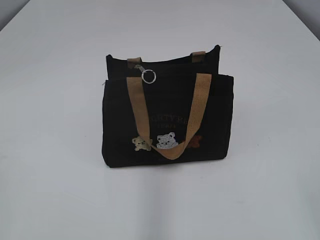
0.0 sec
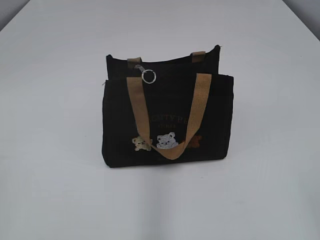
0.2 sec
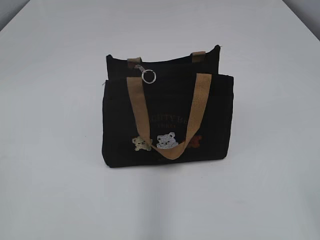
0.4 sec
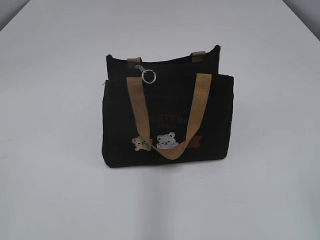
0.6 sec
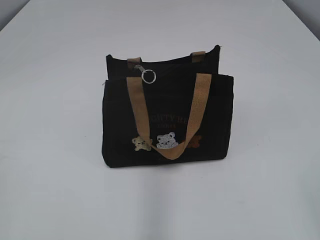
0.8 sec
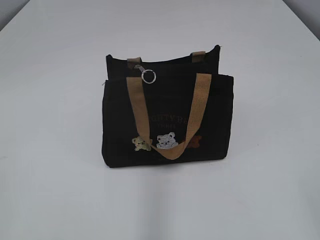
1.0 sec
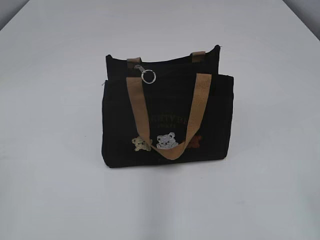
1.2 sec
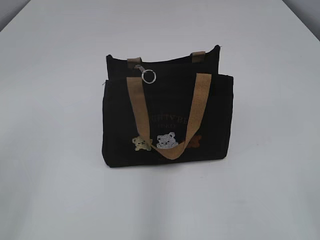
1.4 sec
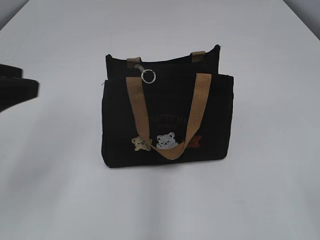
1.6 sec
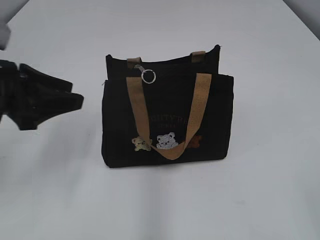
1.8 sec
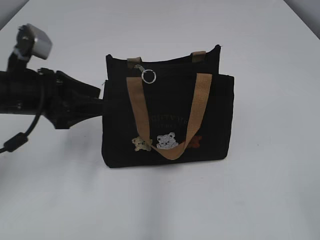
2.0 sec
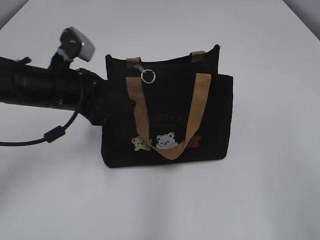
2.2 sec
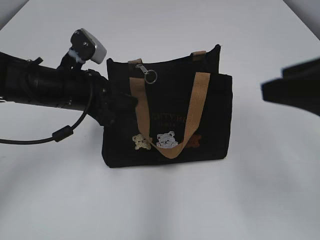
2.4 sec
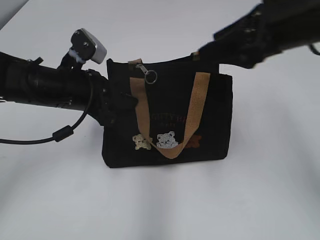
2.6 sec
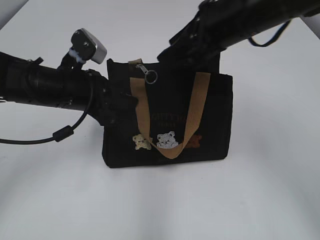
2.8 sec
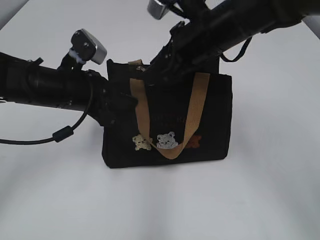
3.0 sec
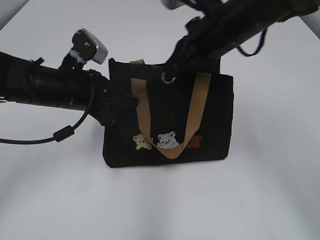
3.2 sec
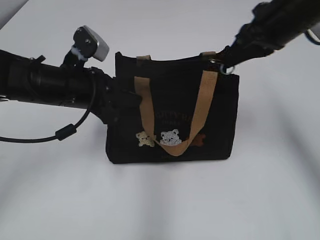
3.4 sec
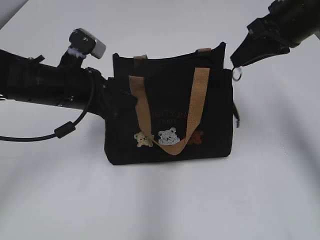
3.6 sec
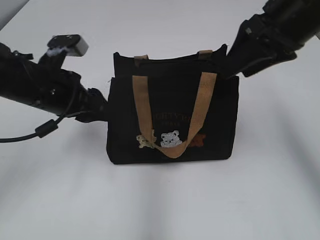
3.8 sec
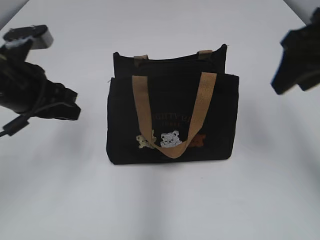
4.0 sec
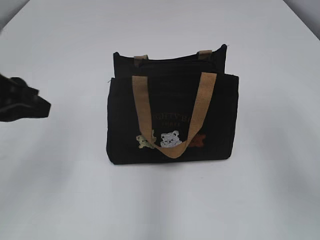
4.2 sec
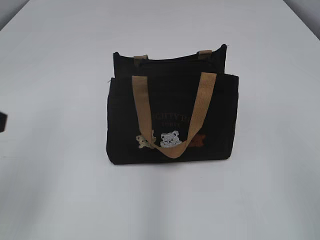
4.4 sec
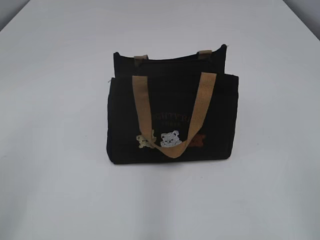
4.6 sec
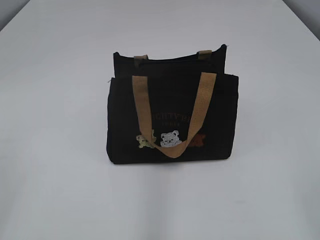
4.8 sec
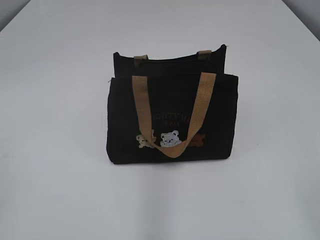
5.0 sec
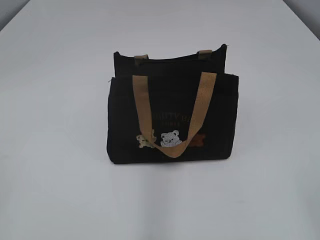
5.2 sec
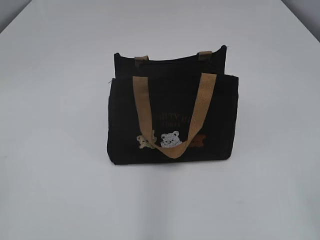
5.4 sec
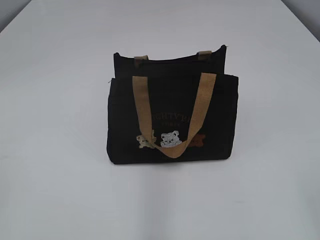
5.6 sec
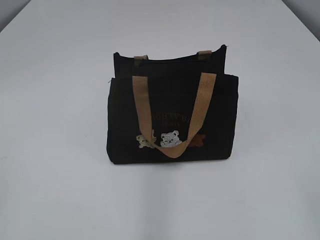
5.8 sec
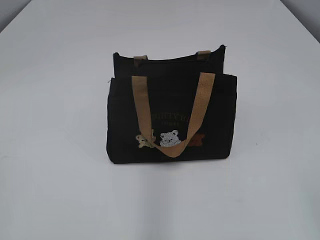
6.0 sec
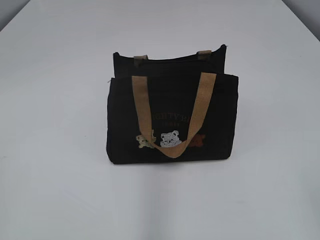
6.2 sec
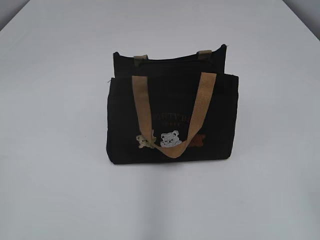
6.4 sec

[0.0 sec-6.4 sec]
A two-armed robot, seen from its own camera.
Step, 0.0 sec to 3.6 sec: Pull open the zipper with your right hand.
1.6 sec to 3.2 sec: The right gripper heads forward and to the left, covering about 40 cm, and closes its fingers, while the left gripper travels forward, downward and to the right by about 25 cm, and closes.
3.2 sec to 4.8 sec: The left gripper travels backward, to the left and upward by about 30 cm. The right gripper shifts some 40 cm backward and to the right, and opens its fingers.

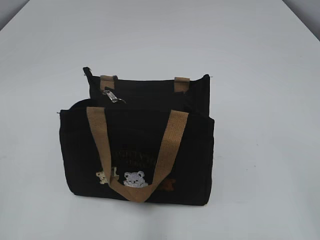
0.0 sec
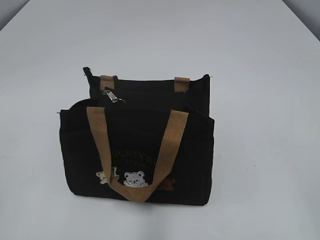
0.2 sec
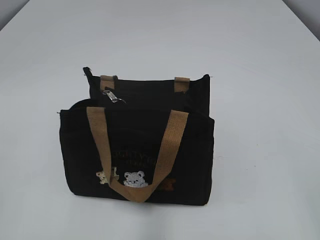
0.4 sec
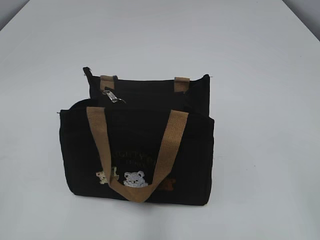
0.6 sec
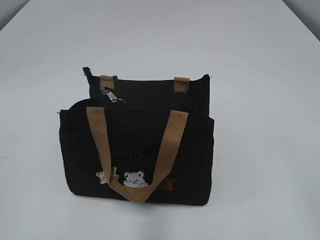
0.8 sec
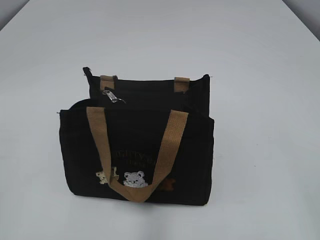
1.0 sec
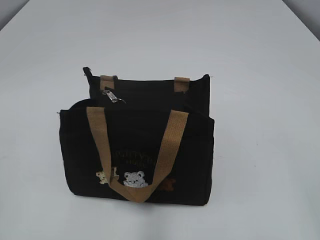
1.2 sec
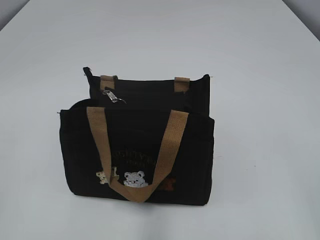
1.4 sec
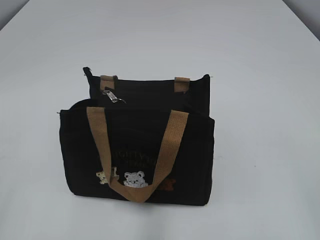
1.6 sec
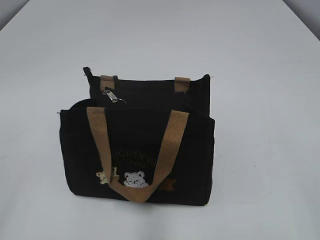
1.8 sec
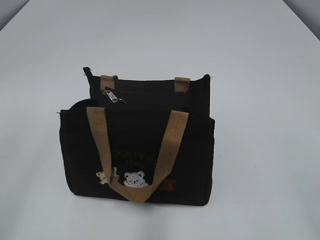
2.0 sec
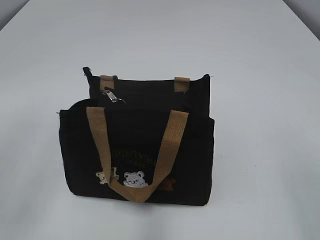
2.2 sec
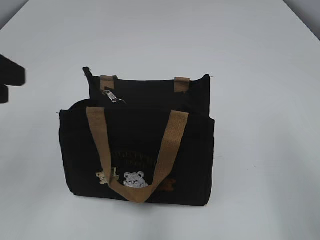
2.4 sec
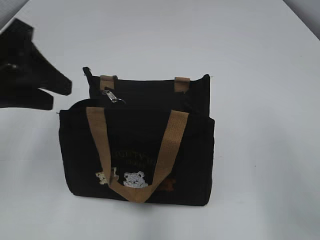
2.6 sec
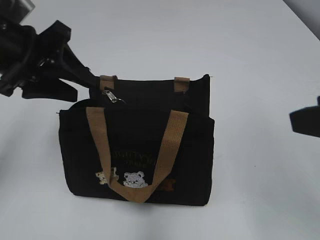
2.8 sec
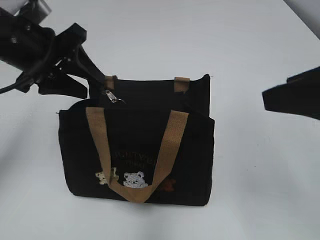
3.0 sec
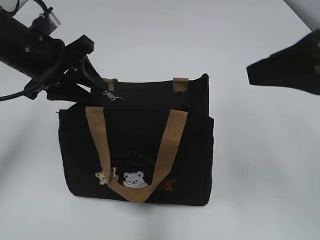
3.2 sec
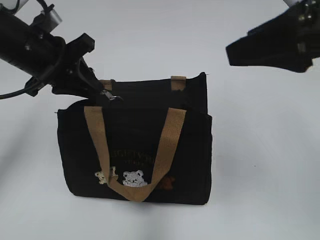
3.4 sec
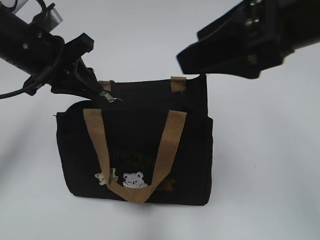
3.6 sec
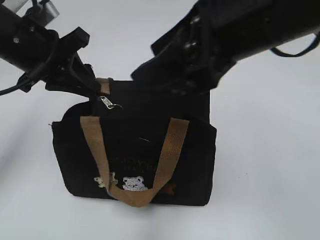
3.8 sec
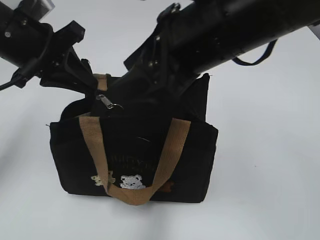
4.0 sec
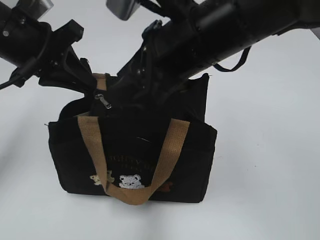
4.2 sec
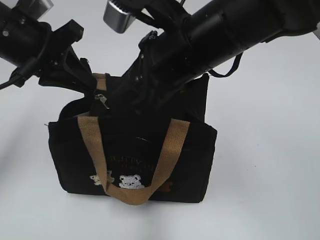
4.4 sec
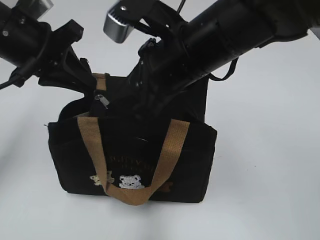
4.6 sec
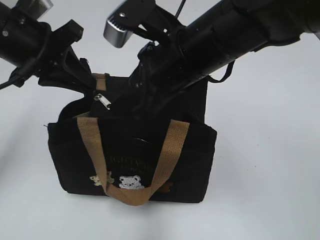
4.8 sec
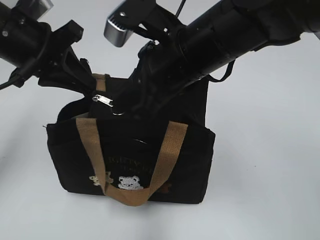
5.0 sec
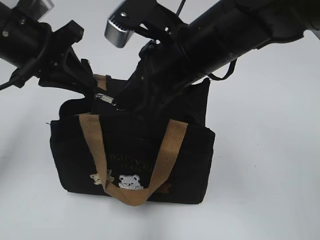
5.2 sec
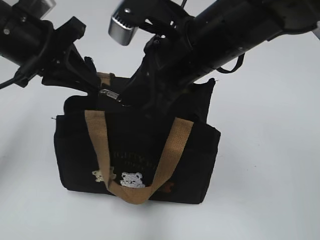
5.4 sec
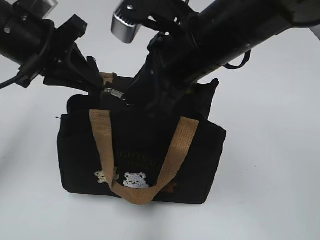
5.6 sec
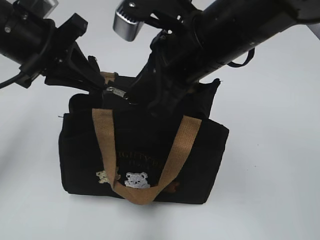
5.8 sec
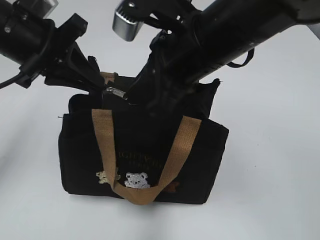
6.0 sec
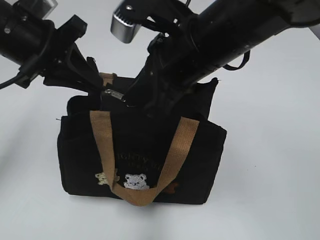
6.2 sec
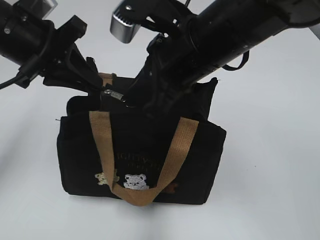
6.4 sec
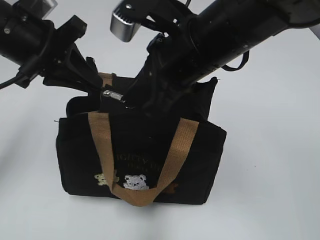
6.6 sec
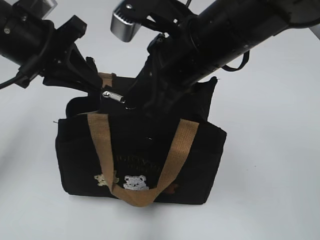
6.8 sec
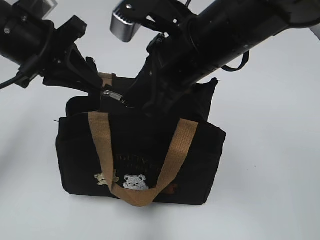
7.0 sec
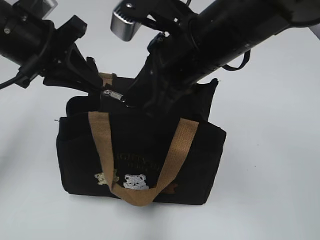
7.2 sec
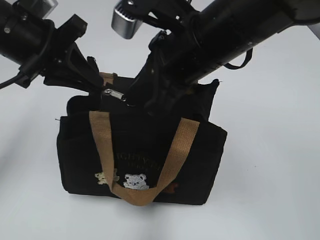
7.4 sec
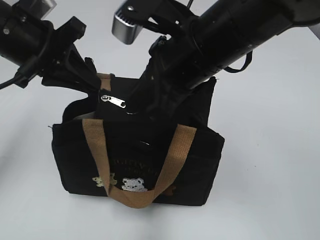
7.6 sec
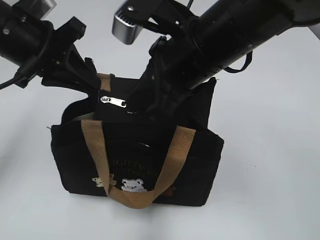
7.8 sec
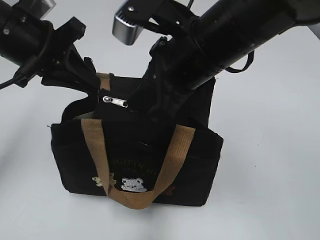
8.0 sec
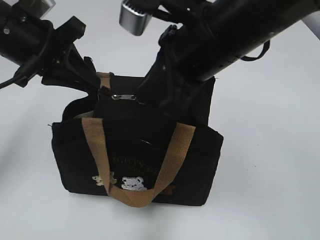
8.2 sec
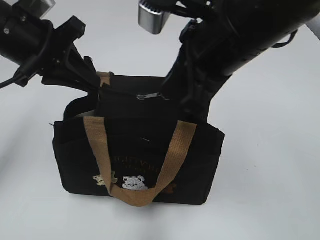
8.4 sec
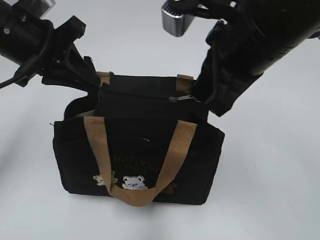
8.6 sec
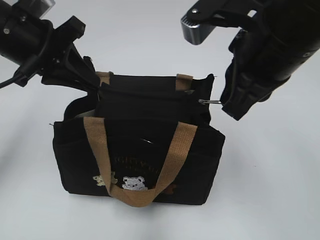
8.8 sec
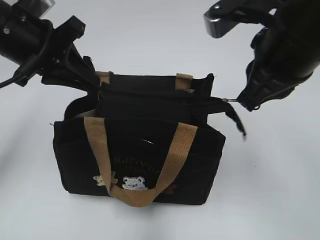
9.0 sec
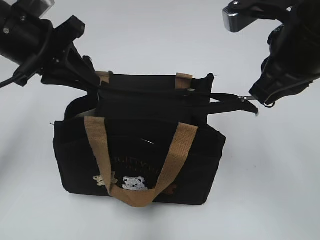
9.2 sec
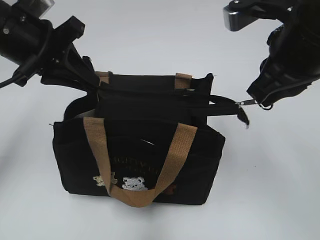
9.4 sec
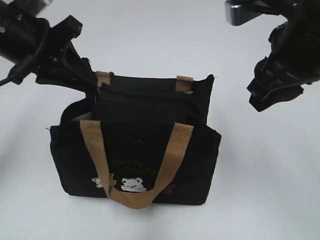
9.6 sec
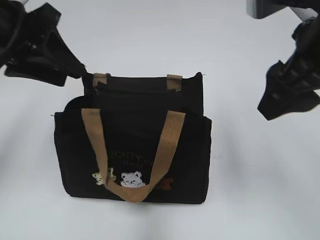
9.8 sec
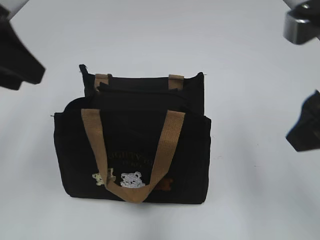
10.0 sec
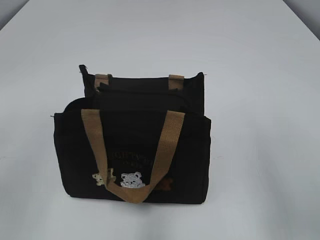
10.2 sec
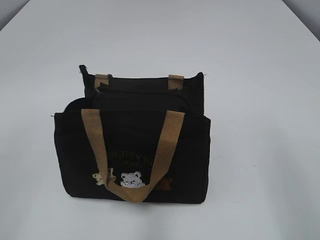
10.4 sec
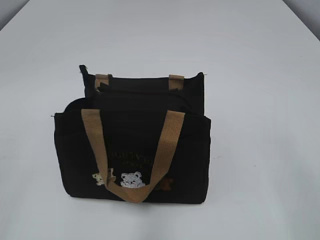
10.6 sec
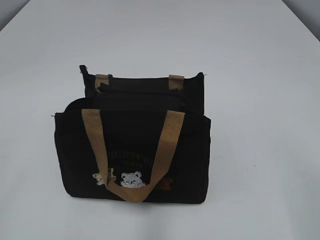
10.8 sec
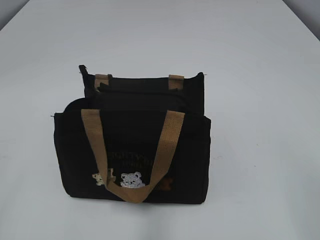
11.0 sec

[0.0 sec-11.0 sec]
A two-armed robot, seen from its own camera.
Step, 0.0 sec to 9.4 sec: Pull open the zipper with your right hand.
1.6 sec to 3.2 sec: The right gripper is displaced forward by roughly 20 cm. The left gripper travels forward by approximately 35 cm.
3.2 sec to 4.8 sec: The right gripper goes approximately 20 cm to the left, forward and downward, and closes up. The left gripper closes.
4.8 sec to 6.2 sec: The right gripper closes up.
6.2 sec to 7.8 sec: Both grippers stay put.
7.8 sec to 9.4 sec: The right gripper heads to the right, covering roughly 10 cm.
9.4 sec to 11.0 sec: The left gripper travels backward and to the left by about 35 cm, and opens. Meanwhile the right gripper is displaced backward and to the right by approximately 25 cm, and opens up.

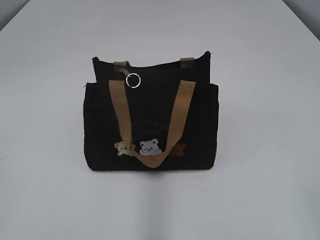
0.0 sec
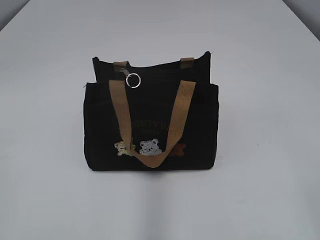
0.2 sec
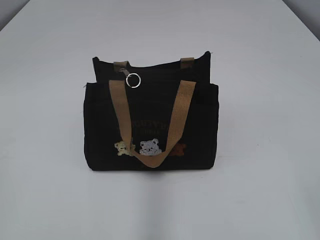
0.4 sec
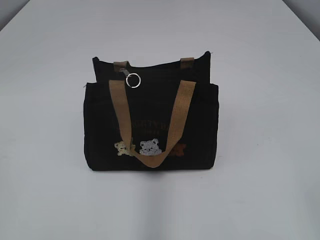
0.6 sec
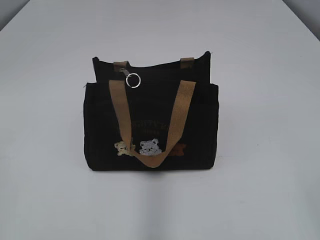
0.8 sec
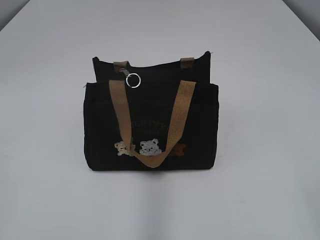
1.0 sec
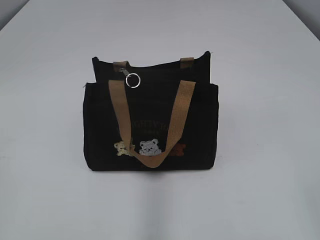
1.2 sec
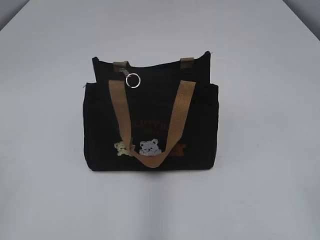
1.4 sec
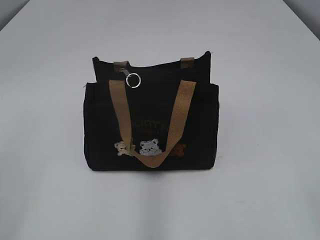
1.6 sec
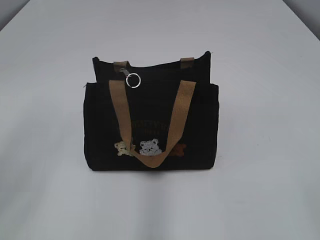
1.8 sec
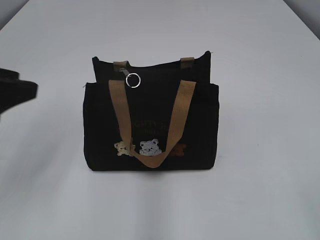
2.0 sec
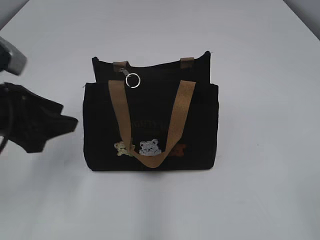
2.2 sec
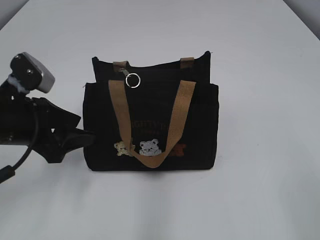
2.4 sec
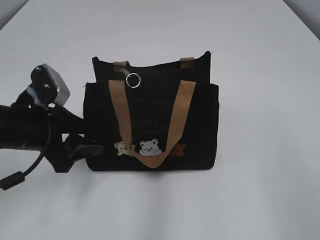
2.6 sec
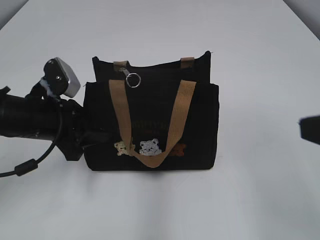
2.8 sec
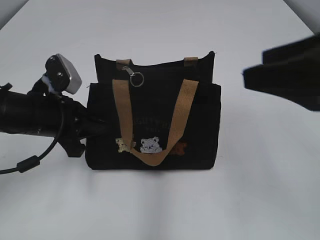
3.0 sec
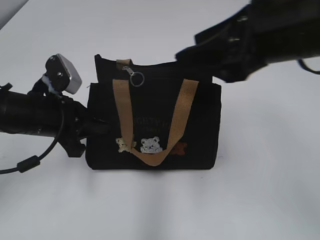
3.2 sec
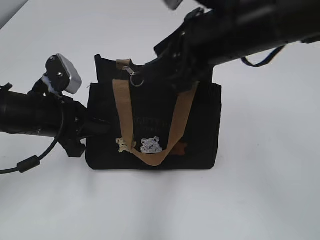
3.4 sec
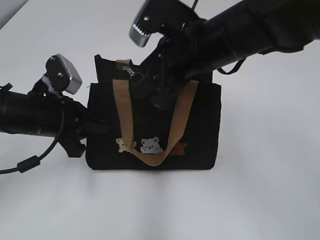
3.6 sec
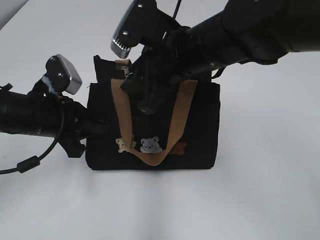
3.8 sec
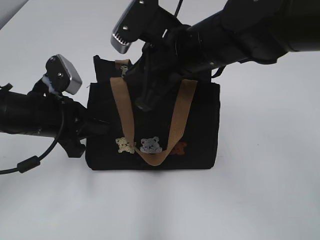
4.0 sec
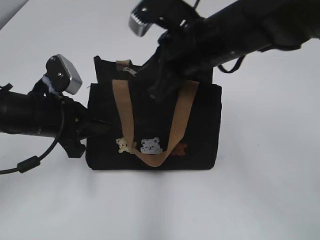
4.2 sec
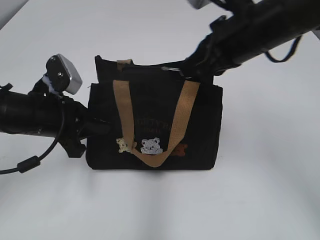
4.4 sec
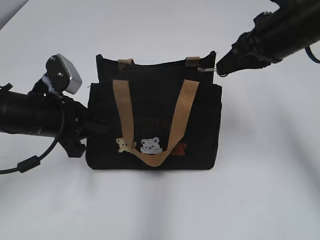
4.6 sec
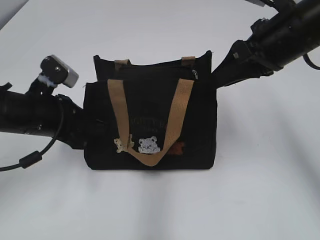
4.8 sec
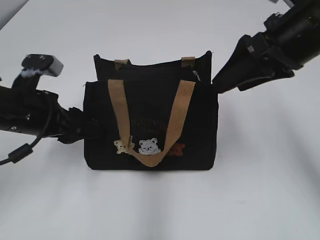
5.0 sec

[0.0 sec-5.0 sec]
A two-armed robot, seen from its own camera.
Step, 0.0 sec to 4.6 sec: Pull open the zipper with your right hand.
Step, 4.8 sec to 5.0 sec: Hold the bag with your left hand.
1.6 sec to 3.4 sec: The left gripper heads forward, downward and to the right, covering roughly 30 cm, and closes its fingers. Meanwhile the right gripper goes approximately 35 cm forward and to the left.
3.4 sec to 5.0 sec: The right gripper moves to the right, some 10 cm, and closes, then reopens; the left gripper opens its fingers.
